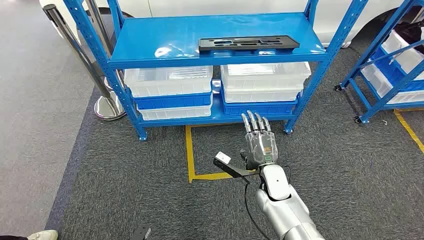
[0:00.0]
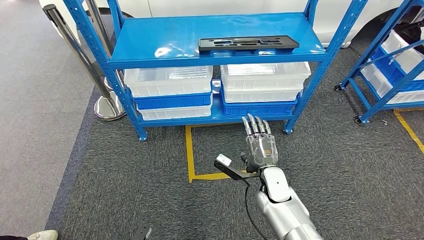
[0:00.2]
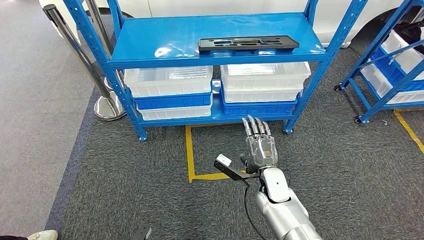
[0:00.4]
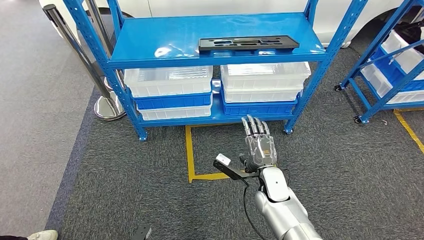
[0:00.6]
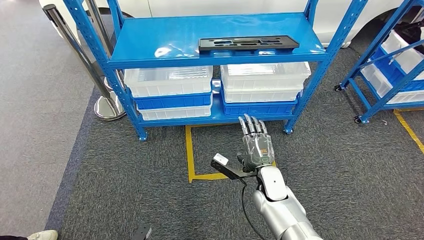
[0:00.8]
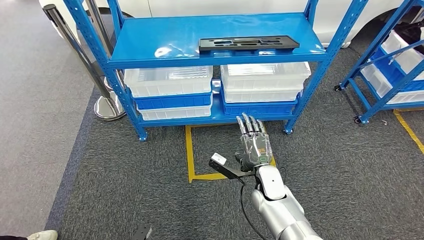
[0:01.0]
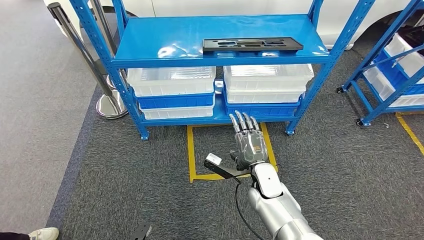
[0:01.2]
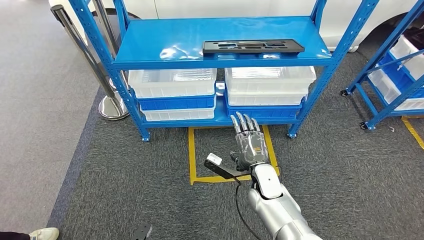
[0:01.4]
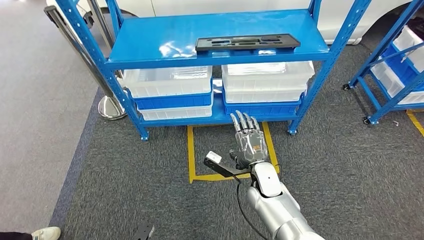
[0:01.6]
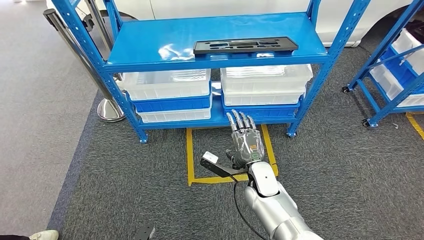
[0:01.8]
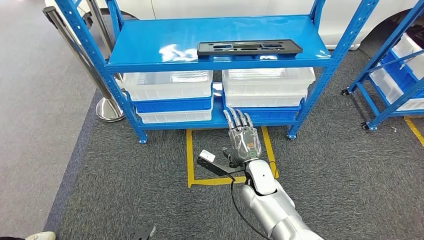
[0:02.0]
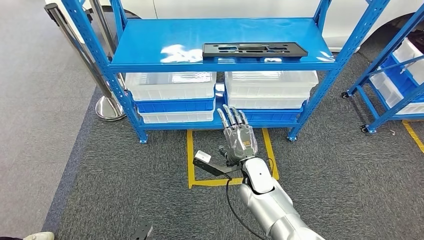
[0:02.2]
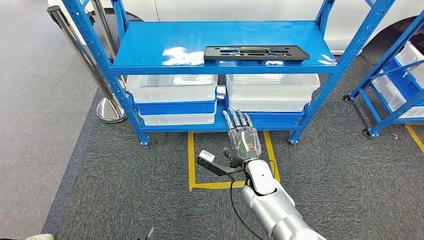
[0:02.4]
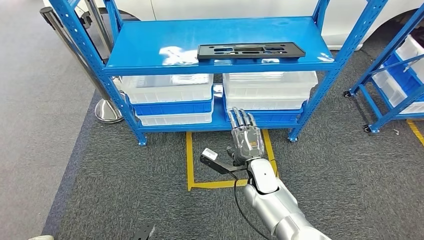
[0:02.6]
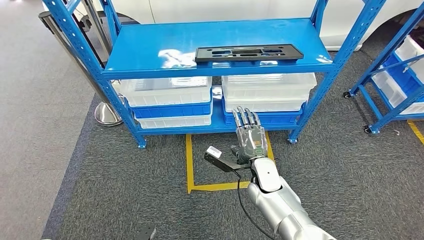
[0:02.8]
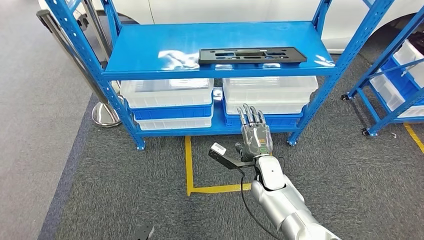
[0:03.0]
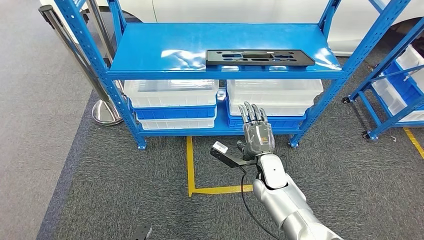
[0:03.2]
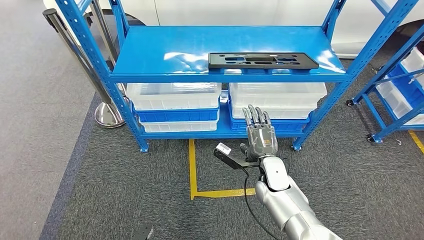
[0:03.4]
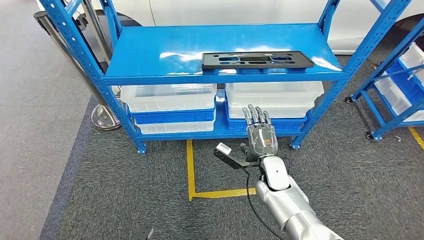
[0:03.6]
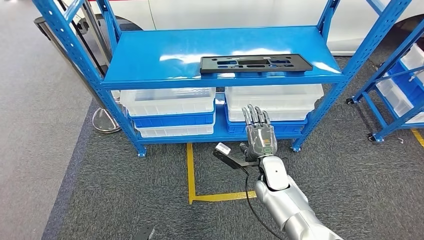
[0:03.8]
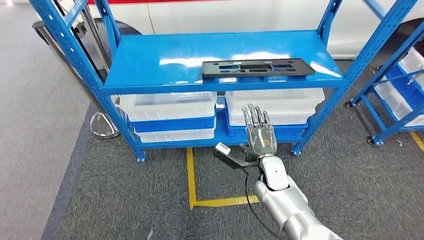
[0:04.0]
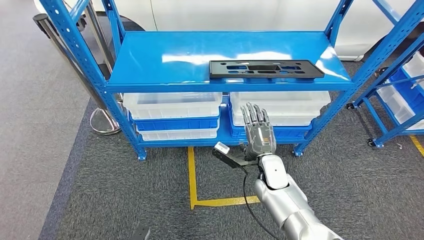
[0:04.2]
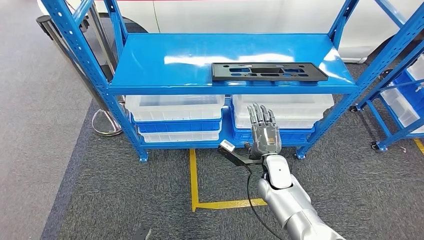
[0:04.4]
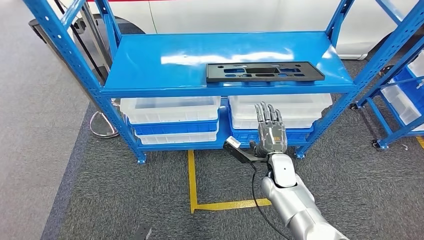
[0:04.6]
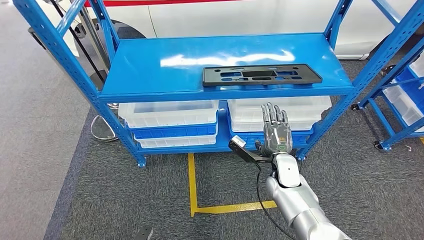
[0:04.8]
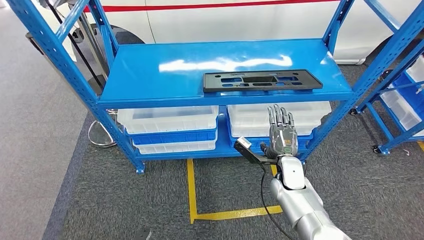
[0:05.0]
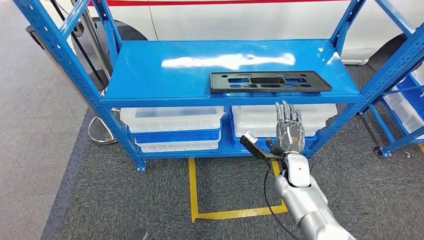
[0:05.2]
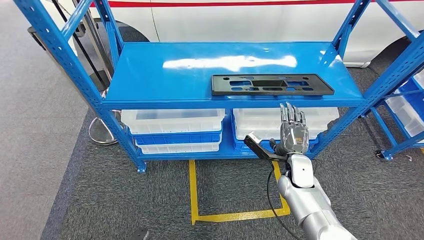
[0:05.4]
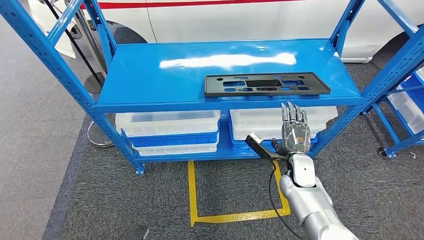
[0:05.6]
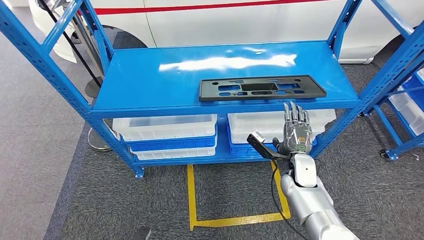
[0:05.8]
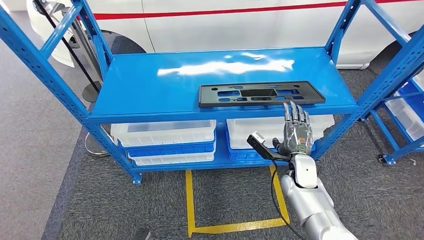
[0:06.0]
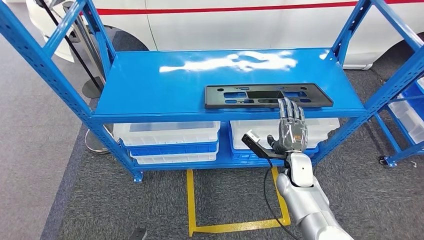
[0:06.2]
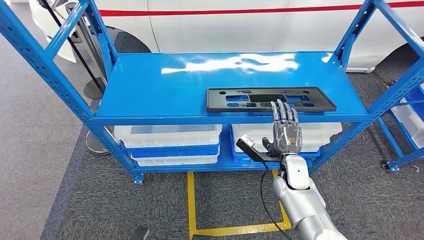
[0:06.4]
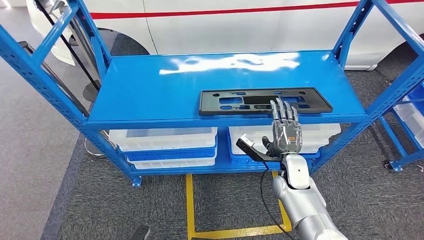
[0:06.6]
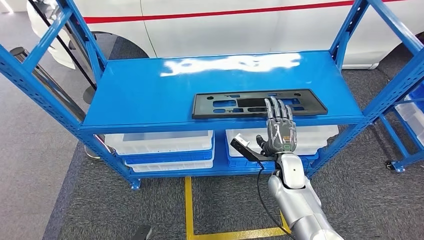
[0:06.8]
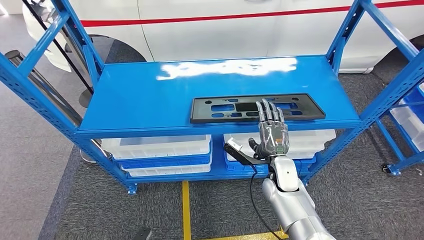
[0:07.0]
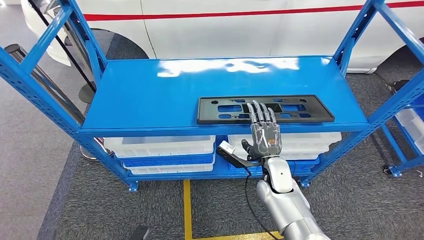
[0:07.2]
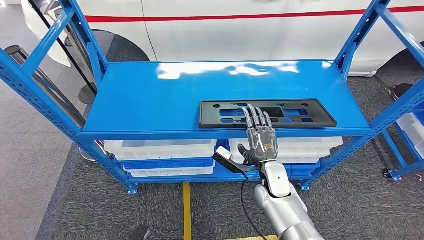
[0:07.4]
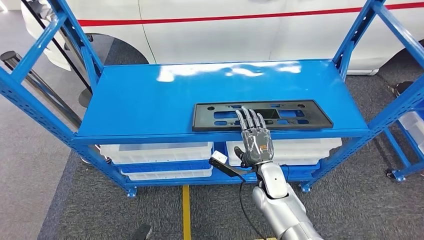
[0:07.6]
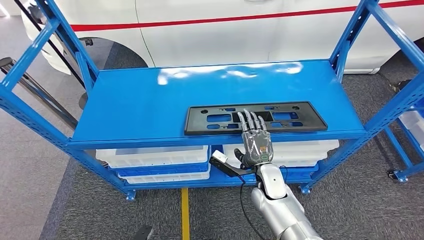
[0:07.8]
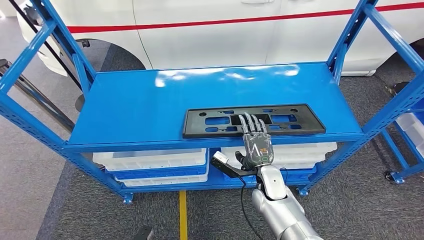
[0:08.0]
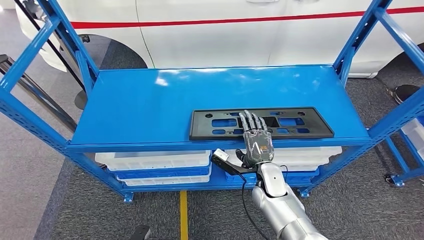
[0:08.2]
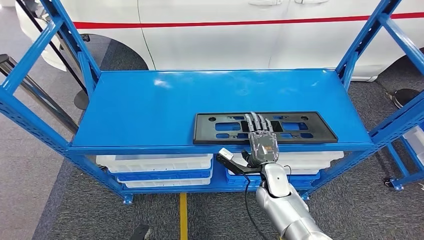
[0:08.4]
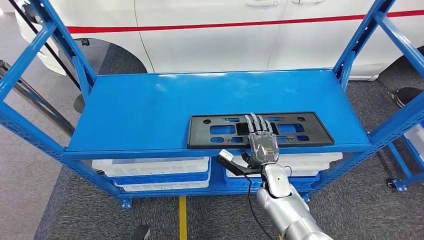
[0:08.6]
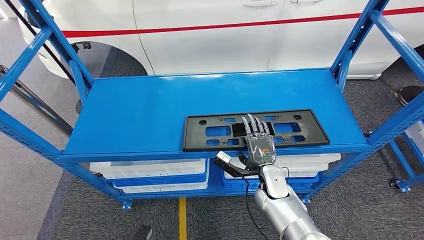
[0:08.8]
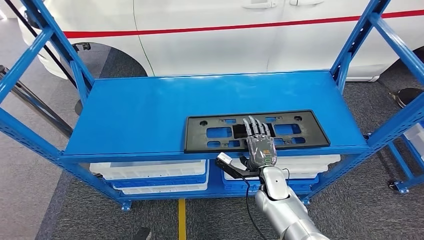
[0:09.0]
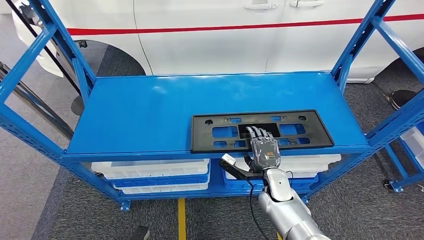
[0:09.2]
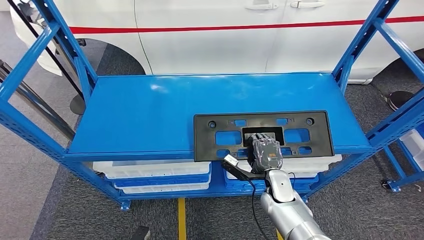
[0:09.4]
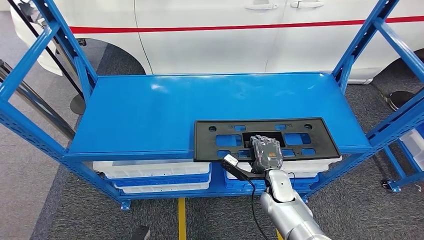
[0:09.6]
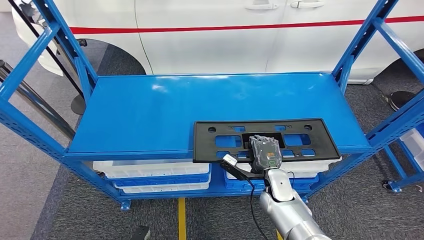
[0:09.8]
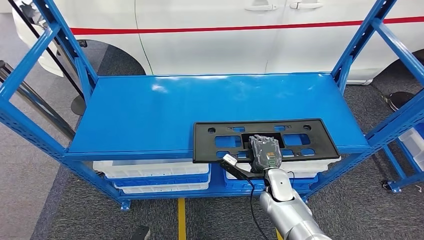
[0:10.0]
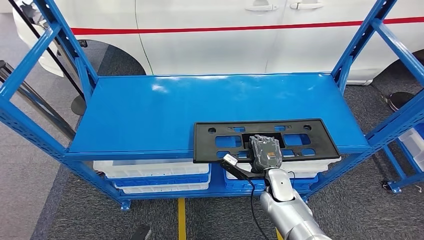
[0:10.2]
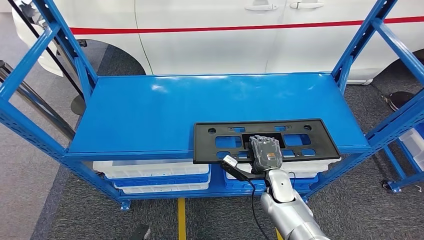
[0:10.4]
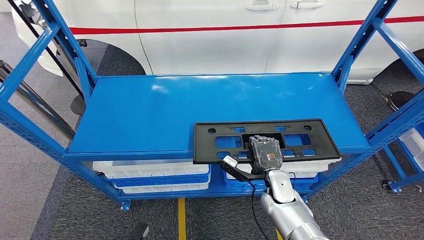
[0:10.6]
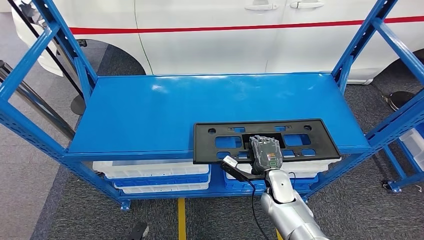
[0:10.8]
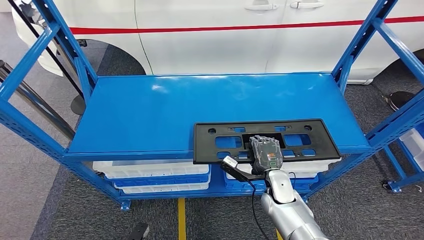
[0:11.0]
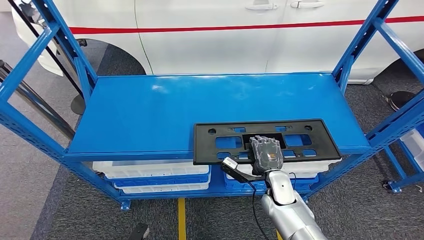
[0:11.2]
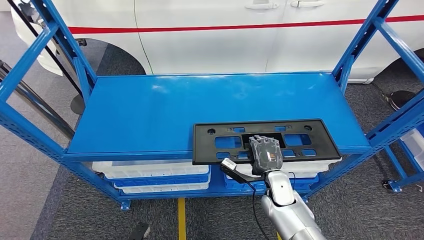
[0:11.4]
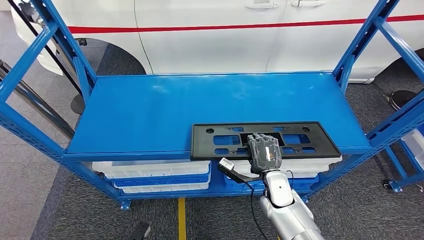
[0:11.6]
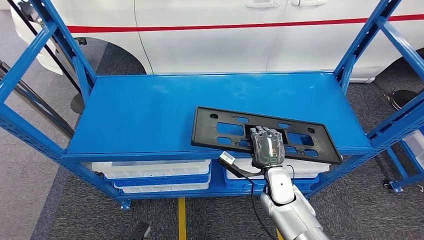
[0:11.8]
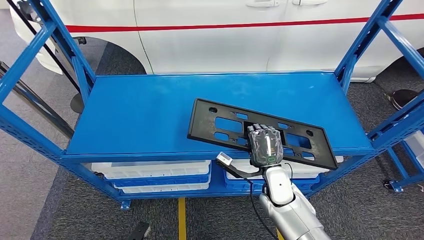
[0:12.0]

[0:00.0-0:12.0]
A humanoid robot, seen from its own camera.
0:10.4 to 0:12.0: The hands make only small movements.

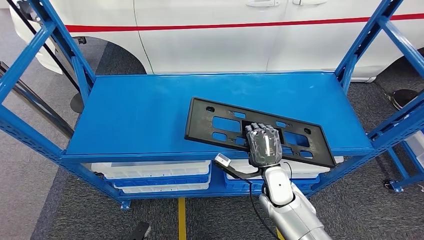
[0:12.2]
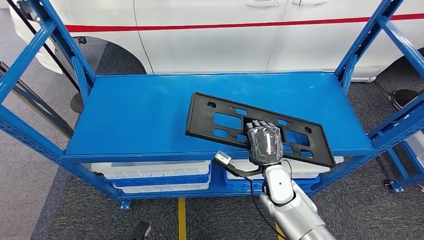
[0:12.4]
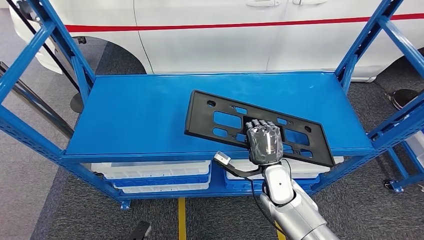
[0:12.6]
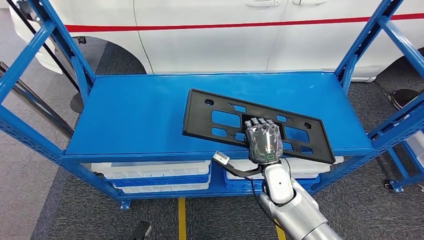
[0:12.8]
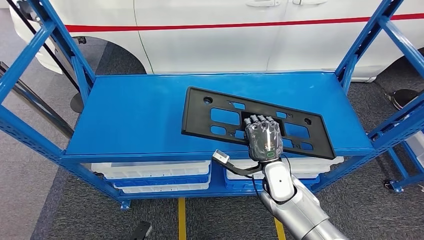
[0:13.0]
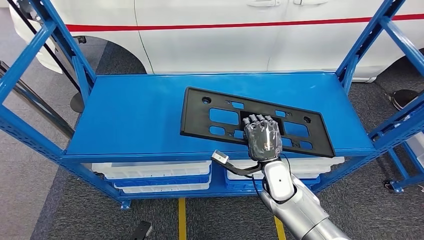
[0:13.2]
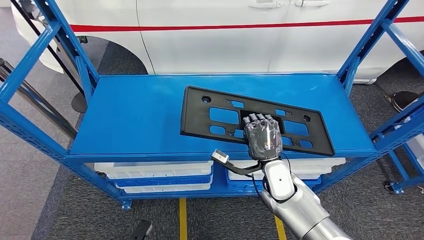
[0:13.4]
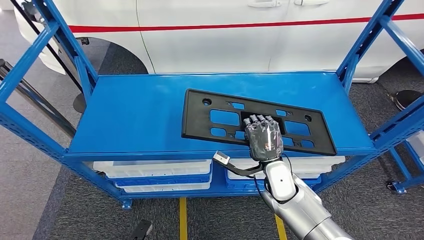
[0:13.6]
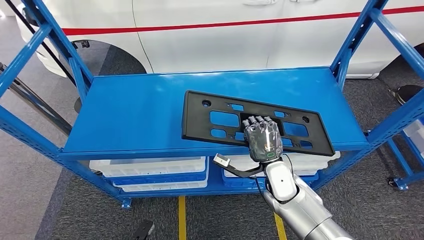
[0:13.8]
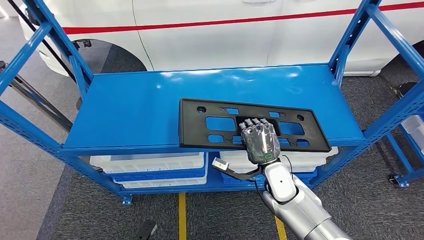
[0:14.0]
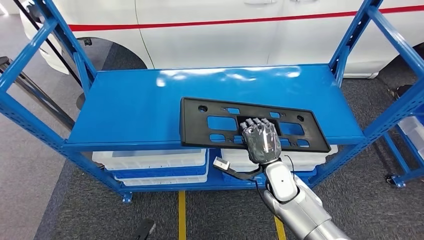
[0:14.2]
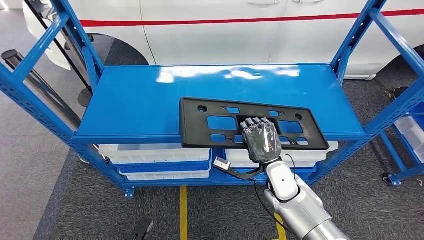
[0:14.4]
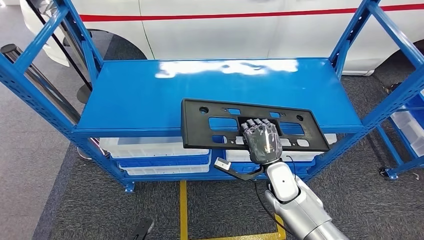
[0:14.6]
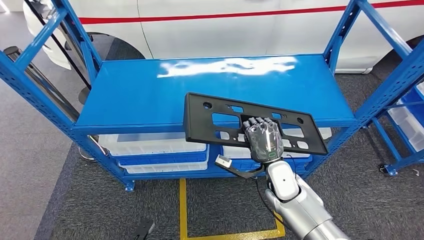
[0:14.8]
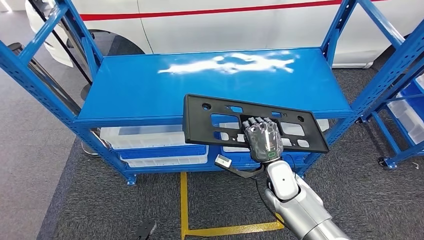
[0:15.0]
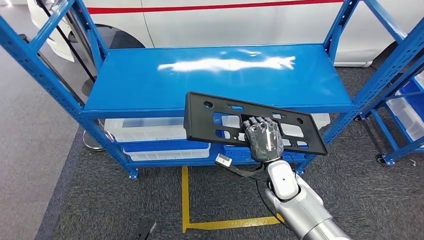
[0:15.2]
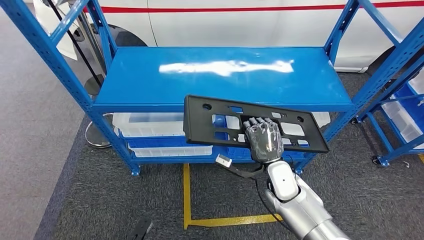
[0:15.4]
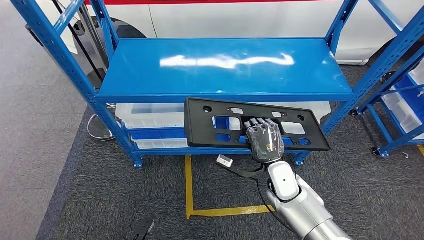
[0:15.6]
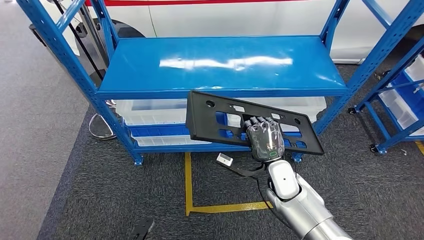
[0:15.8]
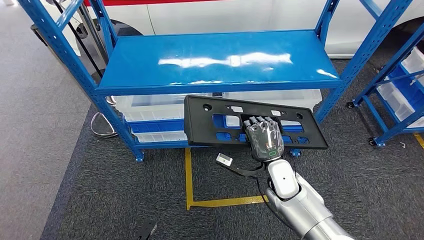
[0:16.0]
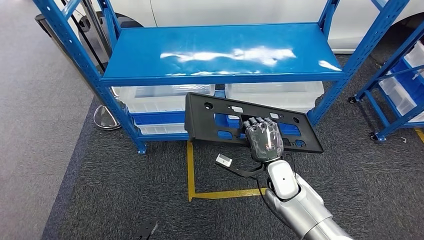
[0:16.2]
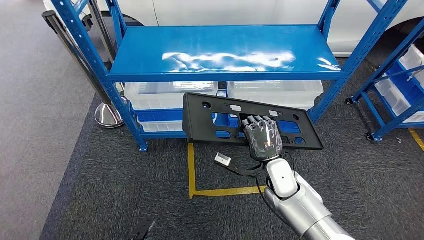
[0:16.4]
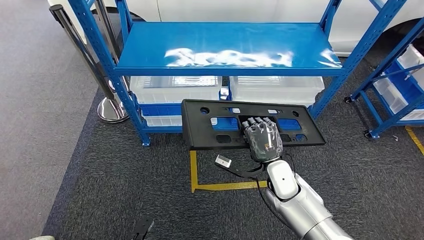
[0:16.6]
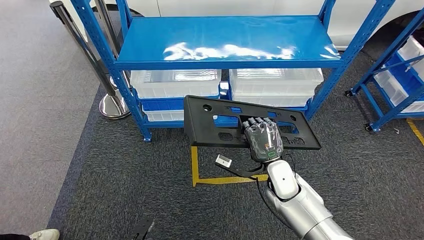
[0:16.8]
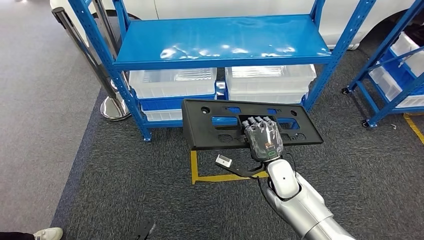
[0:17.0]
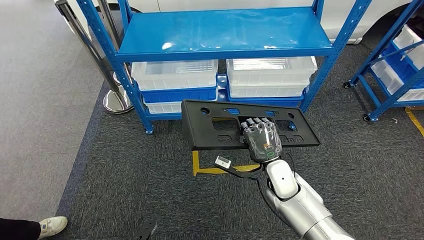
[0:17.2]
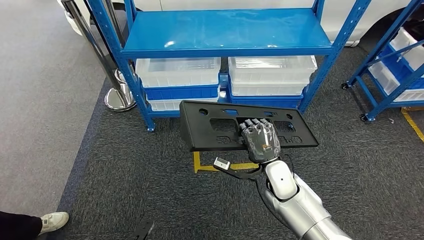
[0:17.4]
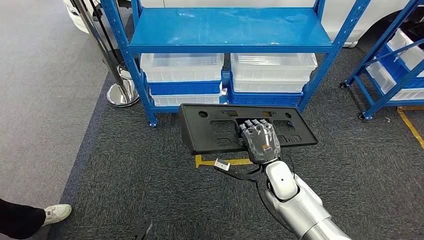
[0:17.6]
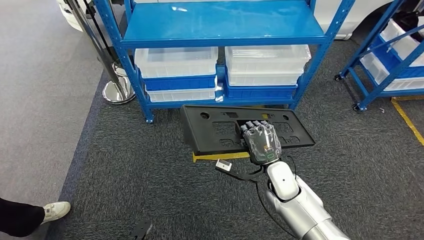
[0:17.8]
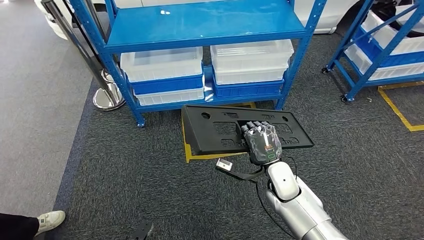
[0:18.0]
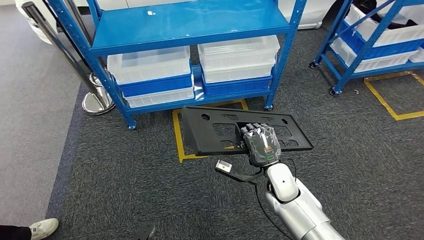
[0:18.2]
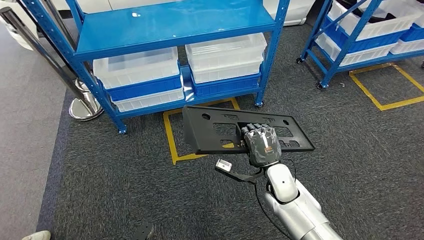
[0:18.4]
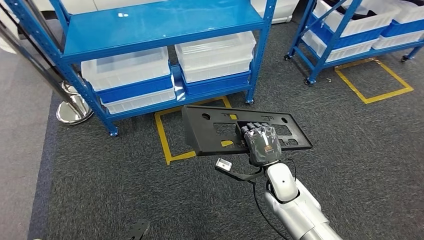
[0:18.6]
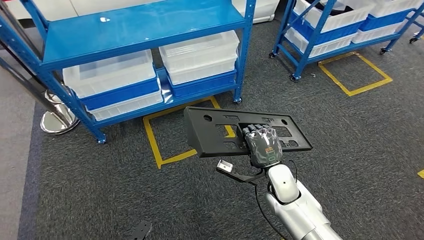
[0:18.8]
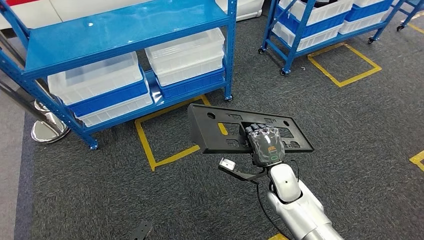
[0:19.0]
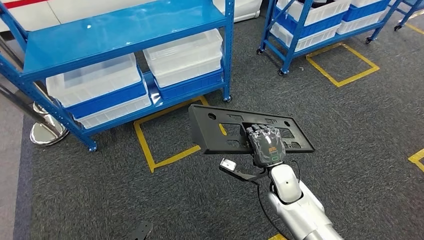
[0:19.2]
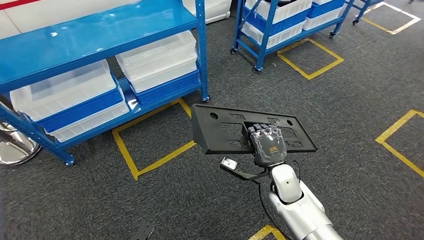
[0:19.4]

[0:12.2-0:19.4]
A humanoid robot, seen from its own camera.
0:12.2 to 0:13.6: There are only small adjustments of the hands.
